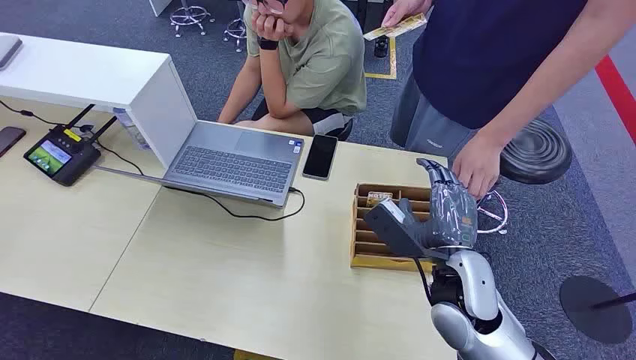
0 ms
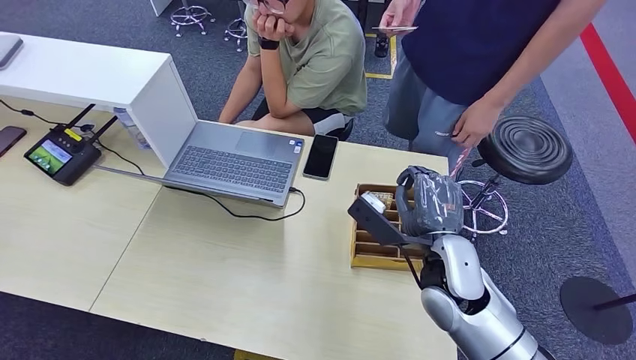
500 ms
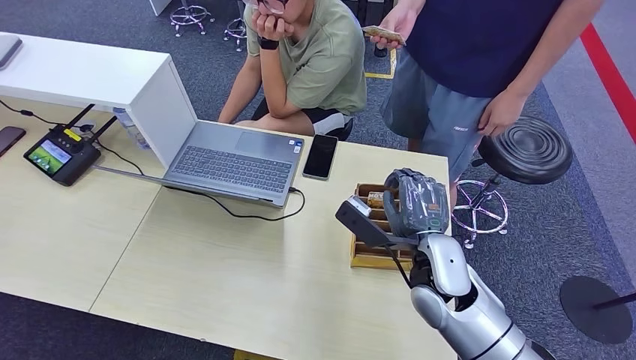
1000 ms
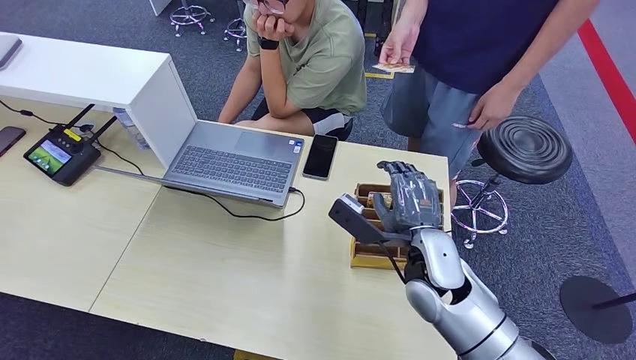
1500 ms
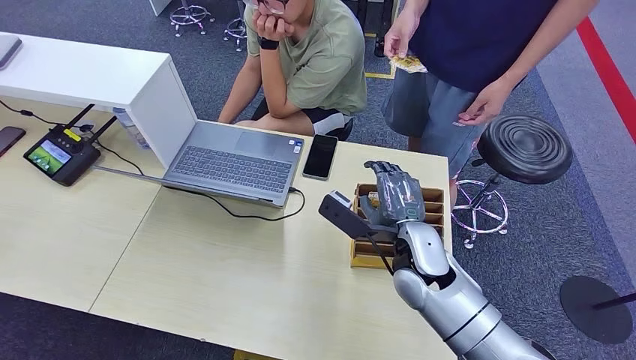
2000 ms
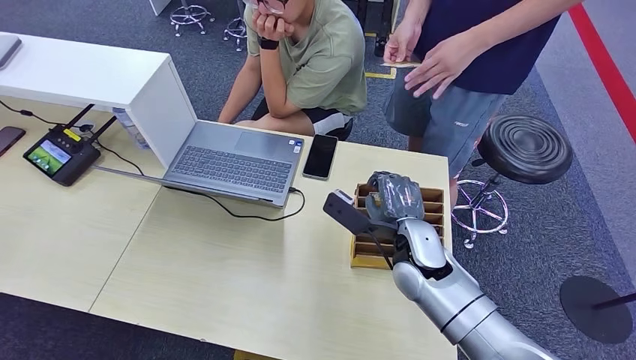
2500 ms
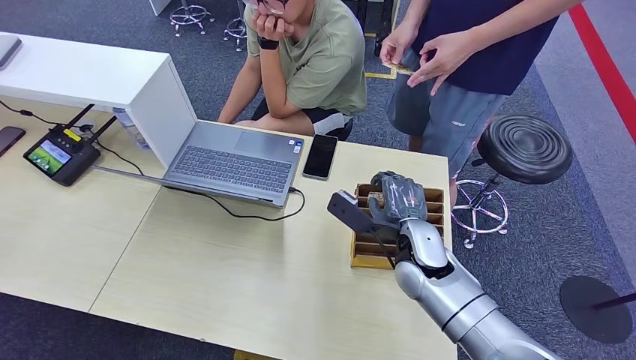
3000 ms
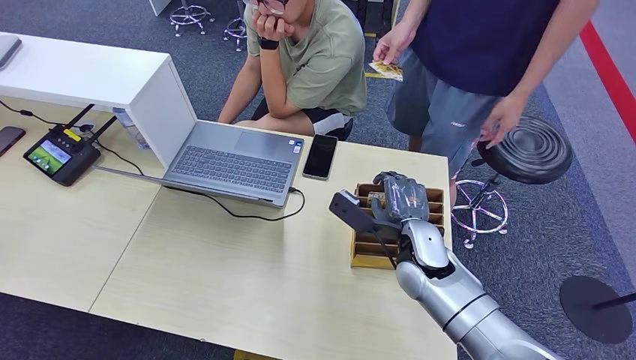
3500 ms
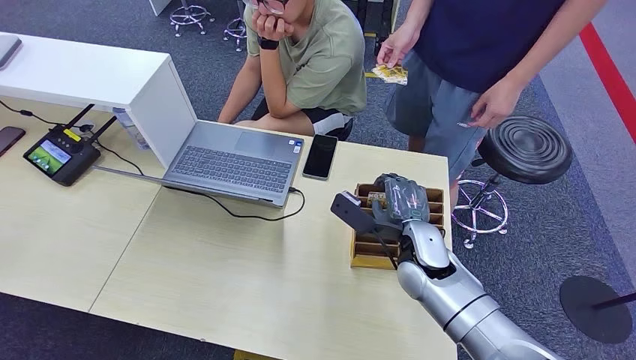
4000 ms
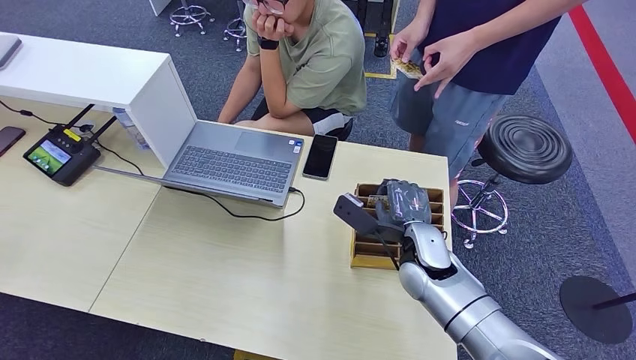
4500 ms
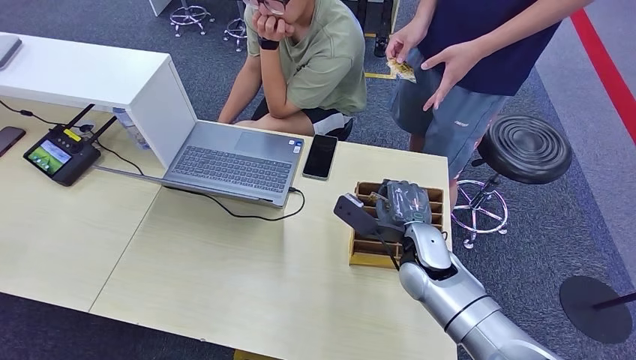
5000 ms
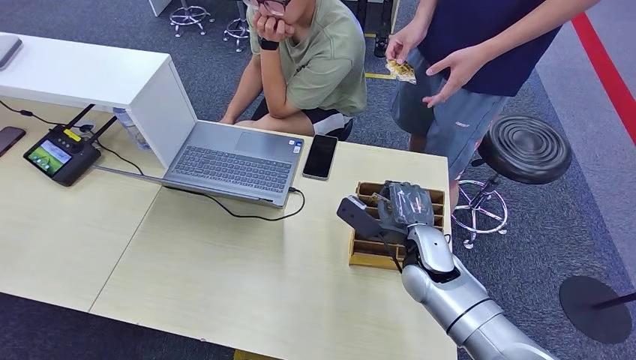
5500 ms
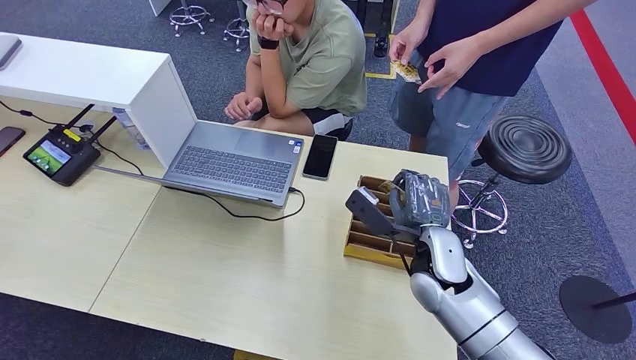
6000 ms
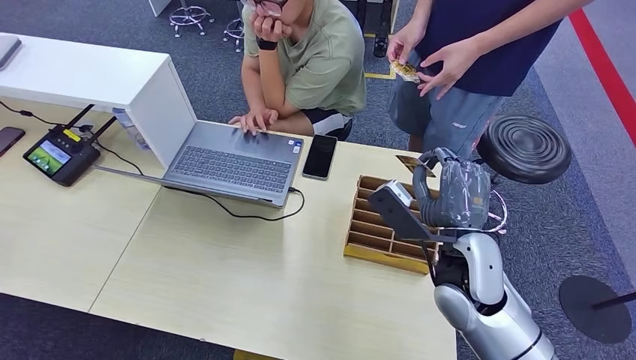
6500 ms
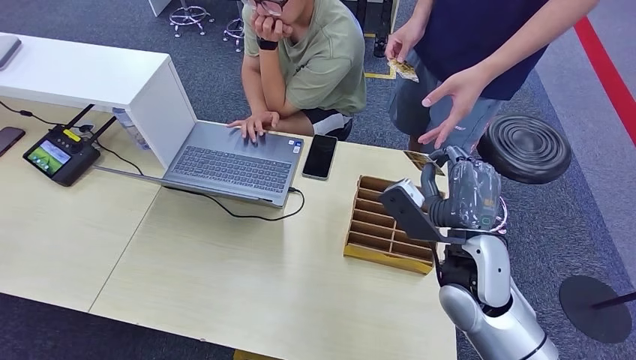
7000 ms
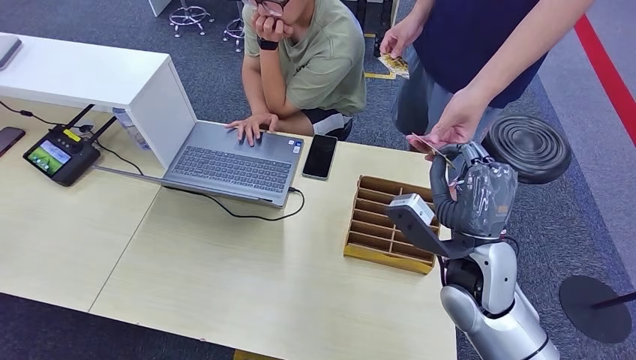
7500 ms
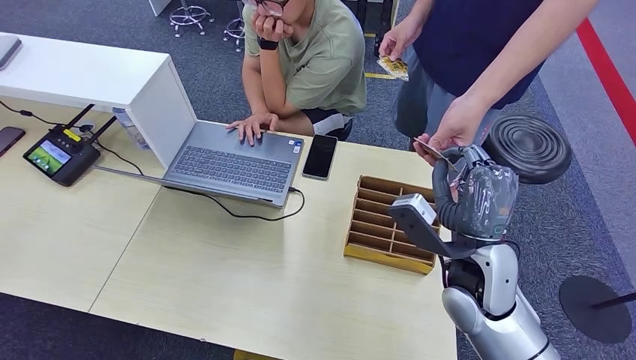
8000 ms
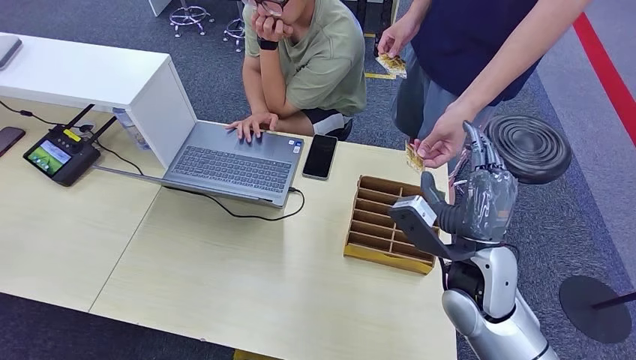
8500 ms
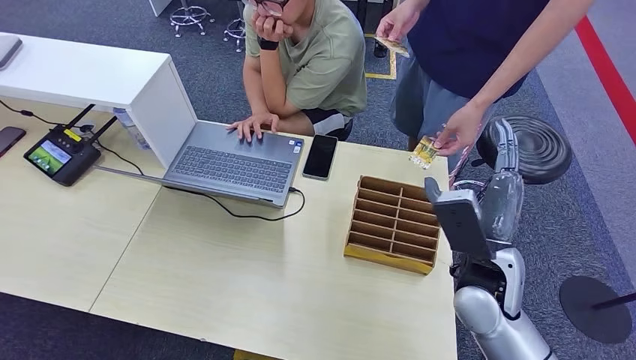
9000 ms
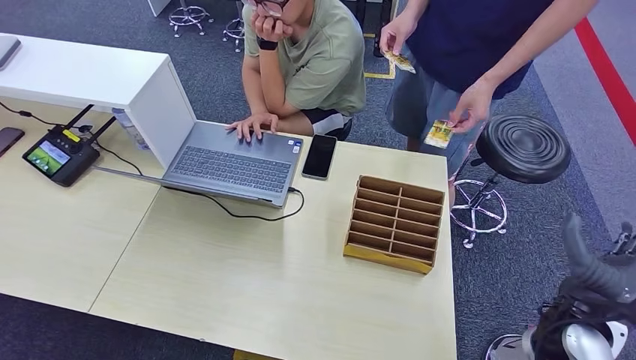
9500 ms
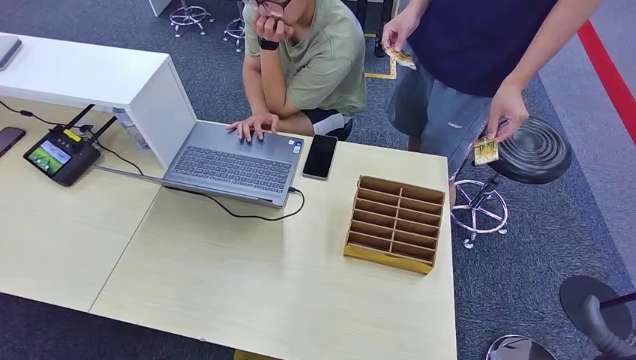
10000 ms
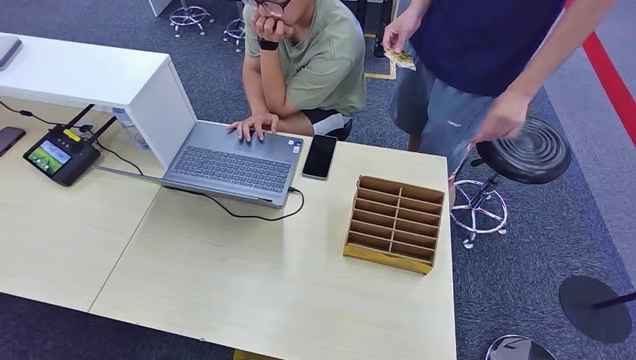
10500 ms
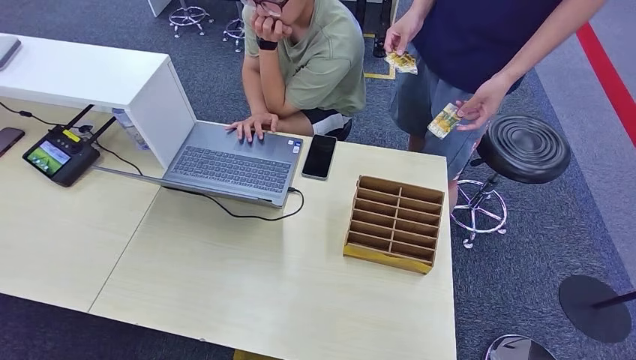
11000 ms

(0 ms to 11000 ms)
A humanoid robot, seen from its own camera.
Step, 0 ms - 5500 ms: Pick up the room card from the card holder.
Step, 6000 ms - 11000 ms: Hand the room card to the target.
2000 ms - 5500 ms: The hands stay close to where they were, moving slightly.
5500 ms - 7500 ms: The right hand moves upward, approximately 5 cm.
7500 ms - 9000 ms: The right hand heads to the right, covering some 10 cm.
9000 ms - 11000 ms: The right hand is displaced downward and backward by roughly 40 cm.
